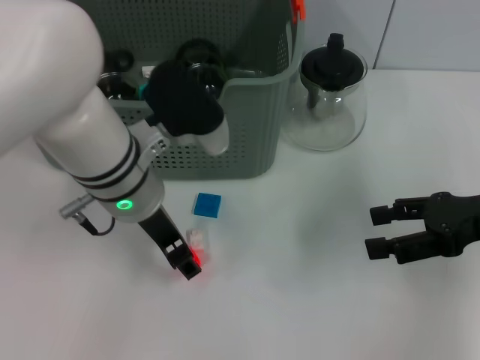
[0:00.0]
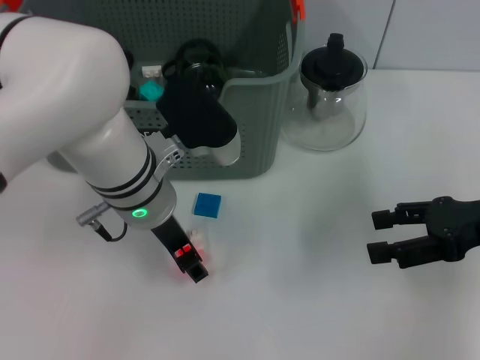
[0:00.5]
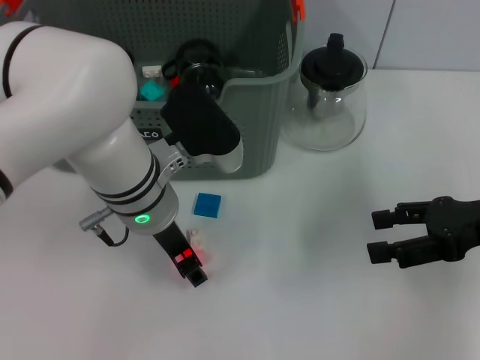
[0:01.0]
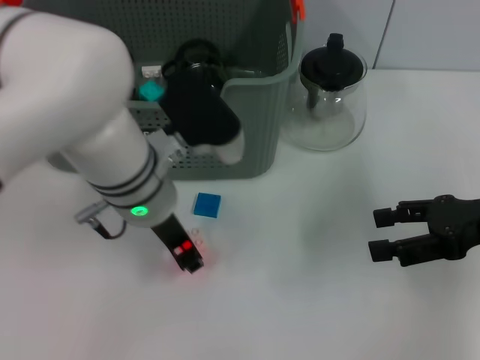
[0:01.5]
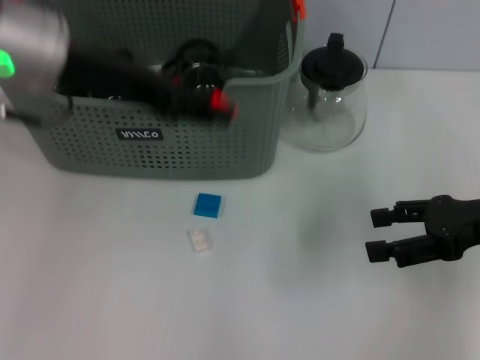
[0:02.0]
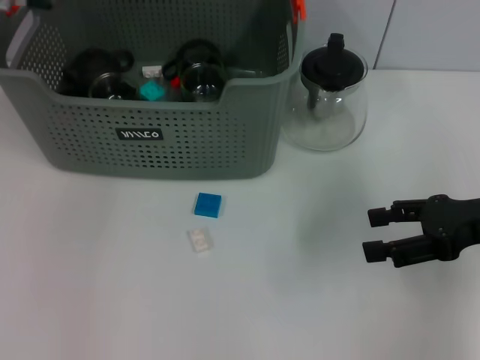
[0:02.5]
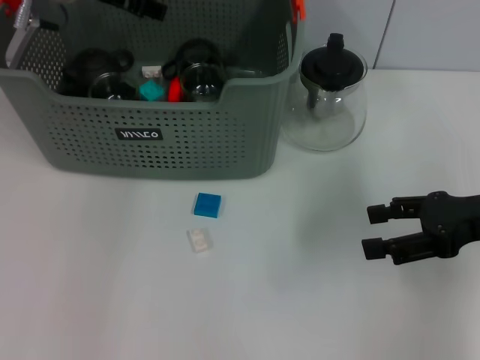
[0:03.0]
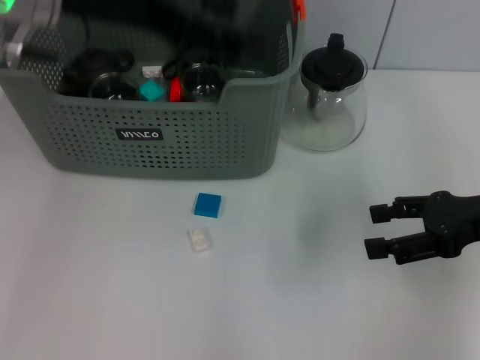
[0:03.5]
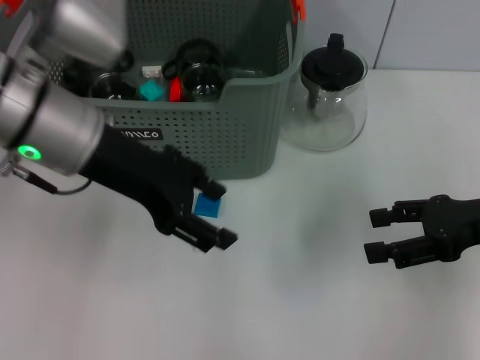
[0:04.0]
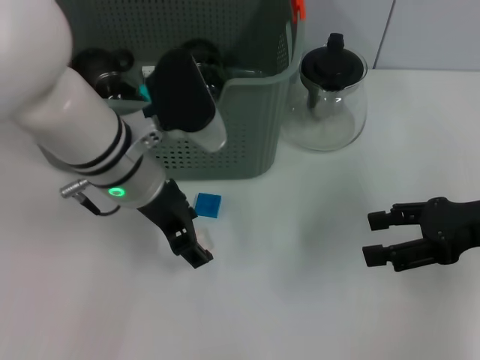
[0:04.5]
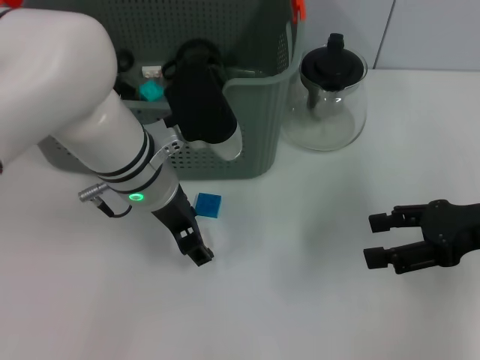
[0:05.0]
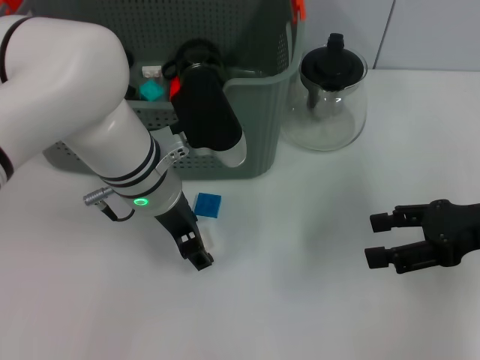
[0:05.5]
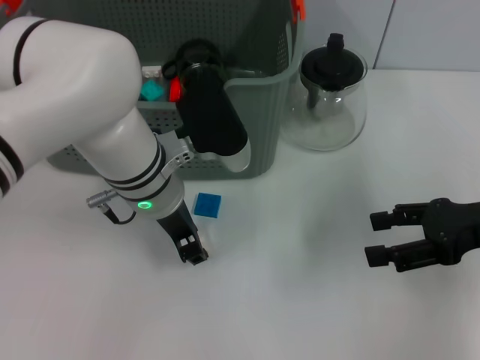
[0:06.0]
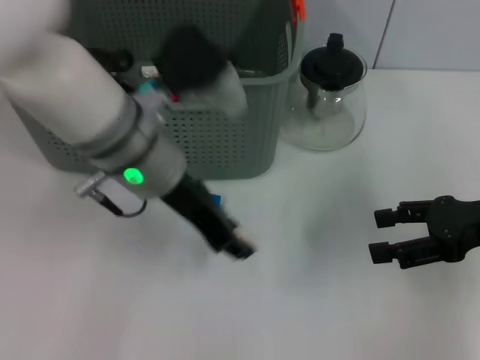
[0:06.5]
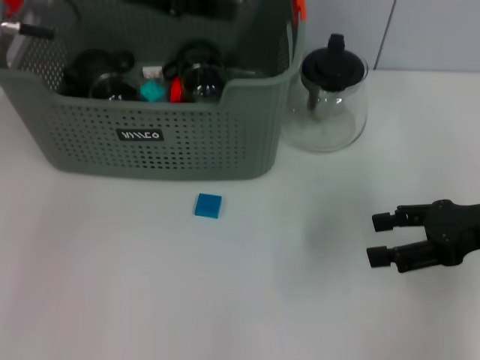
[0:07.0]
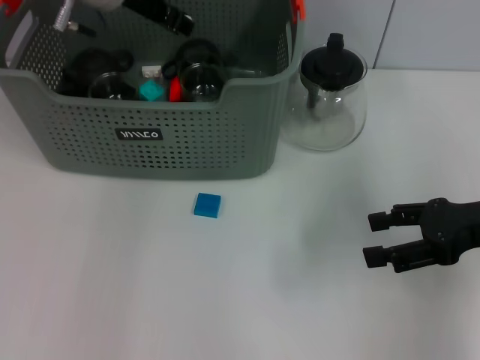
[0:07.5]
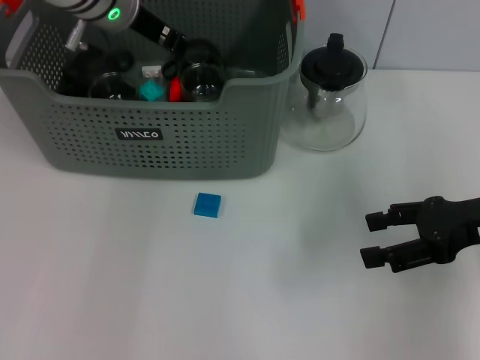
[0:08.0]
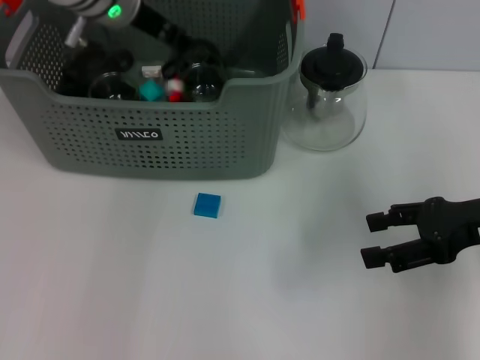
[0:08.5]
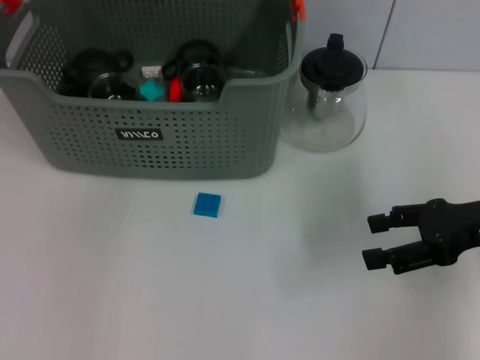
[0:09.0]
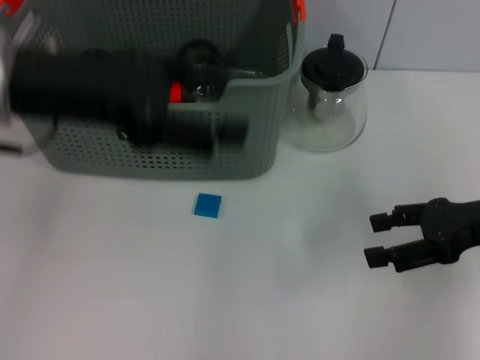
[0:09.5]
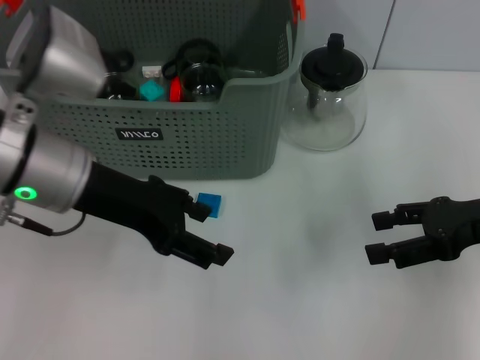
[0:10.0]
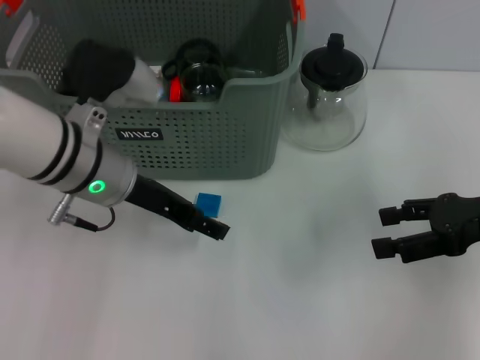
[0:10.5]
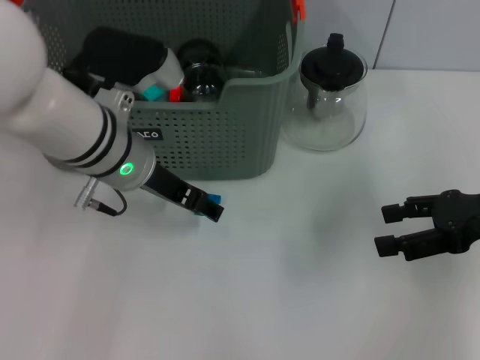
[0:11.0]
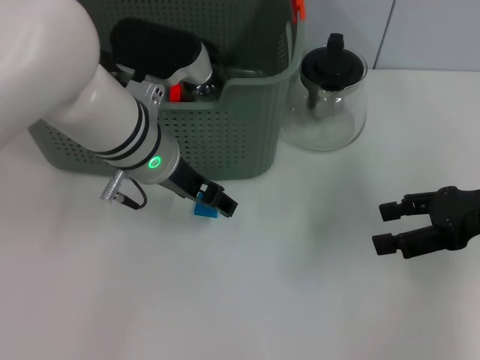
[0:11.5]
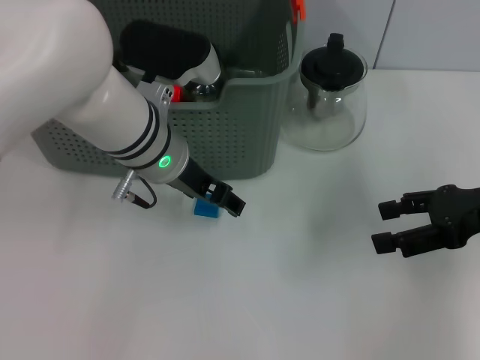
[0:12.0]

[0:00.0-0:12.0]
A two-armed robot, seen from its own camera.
Task of the whole recording: pick up the teacup on the table and place it into the storage bin, pick up the block on the table and place it into the storage bin.
Step, 0:01.5 to 0:03.0: Place the orange block in the storage box with left gripper.
Step, 0:03.5 to 0:06.0: Grasp the white block with left gripper.
Step, 0:06.5 to 0:08.5: Place the white block in the storage box with left gripper.
0:00.0 to 0:02.0: The left gripper goes roughly 15 cm upward and to the left.
0:02.0 to 0:04.0: The left gripper heads downward, covering some 5 cm, moves roughly 10 cm forward and comes back, and opens.
0:04.0 to 0:06.0: The left gripper goes about 10 cm downward and to the right.
0:06.0 to 0:08.0: The left gripper travels forward, upward and to the left by approximately 15 cm.
0:08.0 to 0:10.0: The left gripper shifts roughly 15 cm backward, and opens.
0:10.0 to 0:12.0: The left gripper goes some 10 cm to the right and forward.

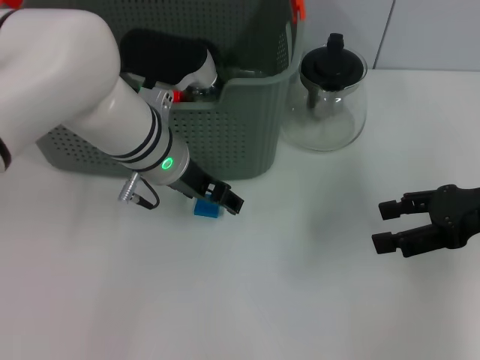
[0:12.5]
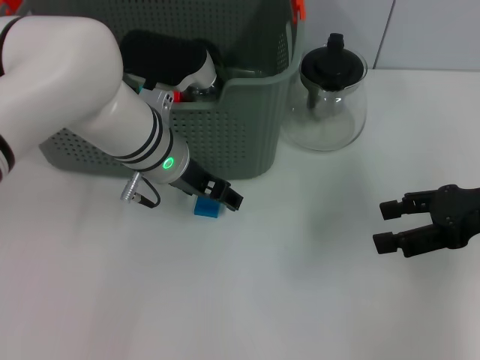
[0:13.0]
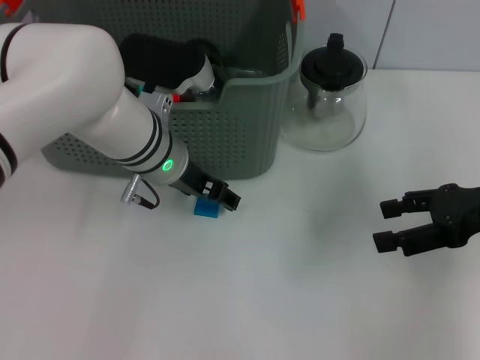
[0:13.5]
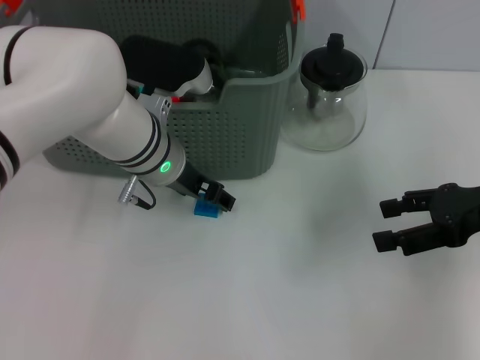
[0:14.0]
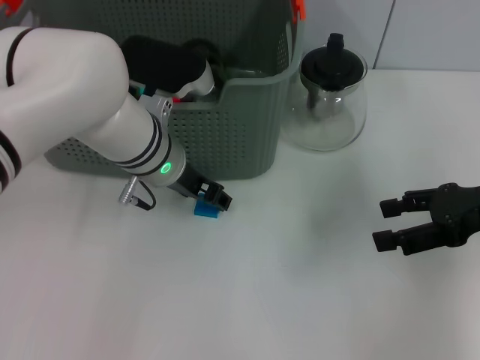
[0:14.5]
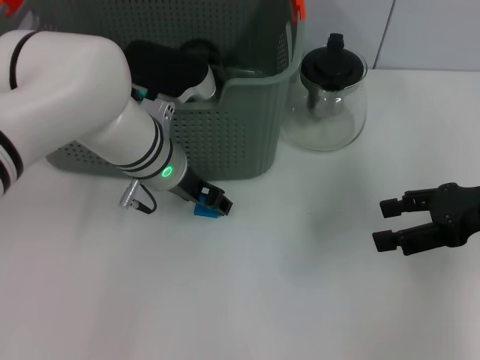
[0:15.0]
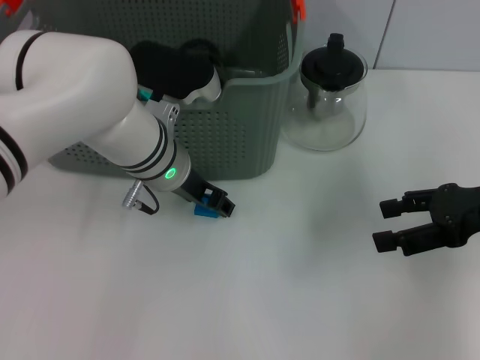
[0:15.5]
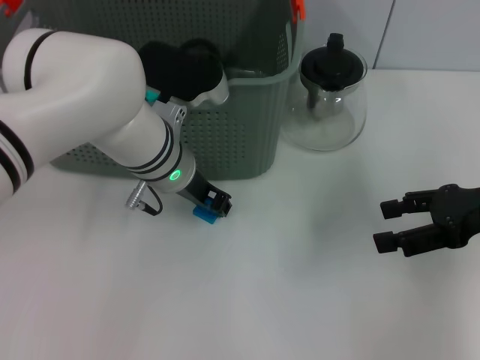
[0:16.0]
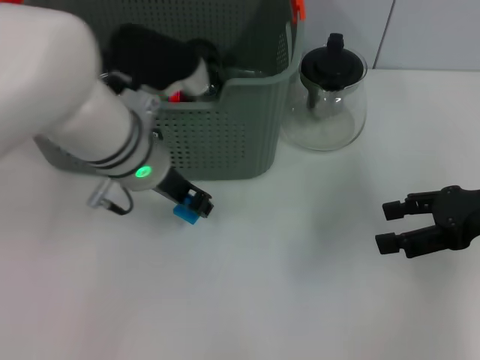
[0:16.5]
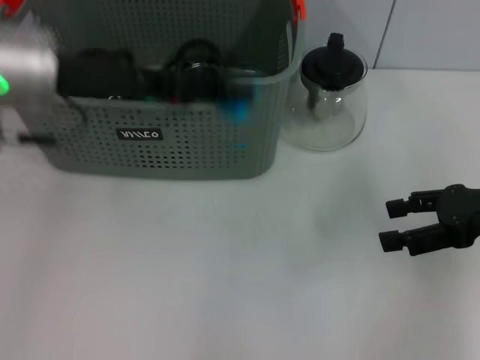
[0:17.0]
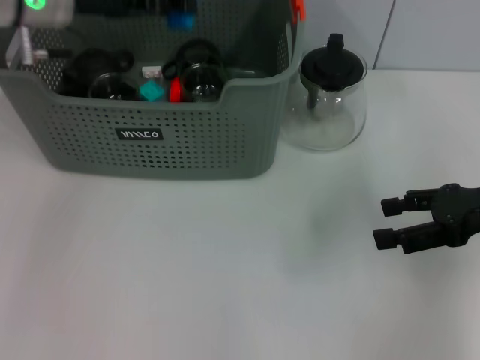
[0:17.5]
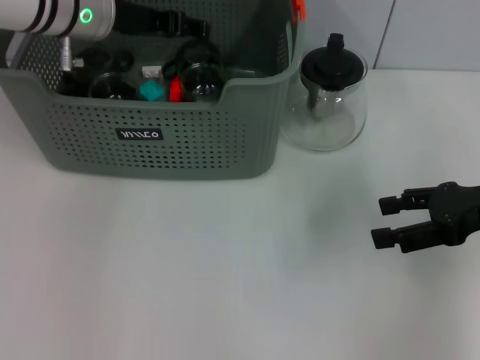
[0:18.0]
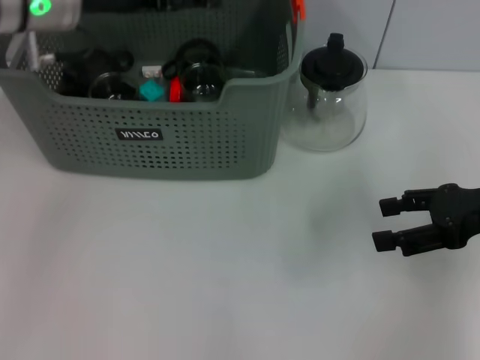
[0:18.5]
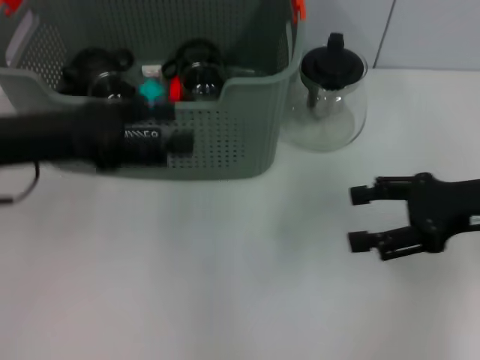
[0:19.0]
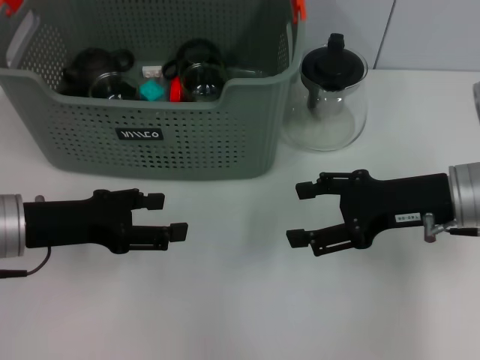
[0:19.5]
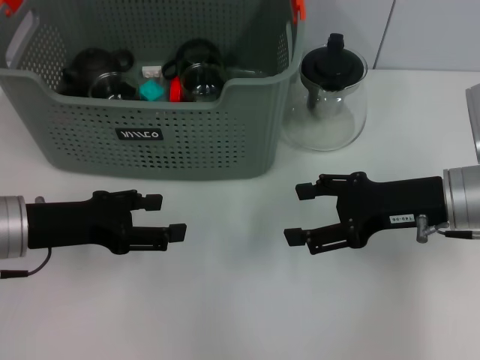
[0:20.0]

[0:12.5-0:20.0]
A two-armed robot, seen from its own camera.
Task of the whole recording: pick up the teacup on the table and place it into the storage bin, pick up the block on the table and place it into the storage bin.
Step, 0:12.5 to 0:16.0: Grasp the dark blue block with left gripper.
Step, 0:16.5 to 0:18.0: Place the dark blue block in the storage box with left gripper.
0:12.5 to 0:16.5: The grippers move only a little.
0:16.5 to 0:18.0: The left gripper heads forward, to the left and upward, covering approximately 15 cm.
0:18.0 to 0:20.0: The left gripper goes about 20 cm backward, downward and to the left, and opens up, while the right gripper heads to the left, covering roughly 10 cm.
